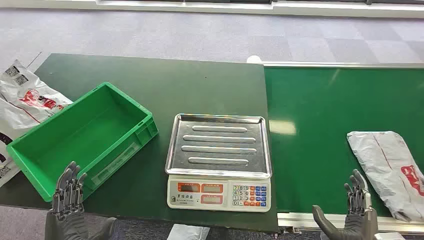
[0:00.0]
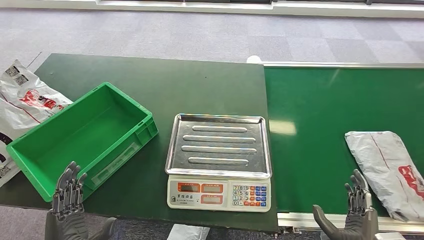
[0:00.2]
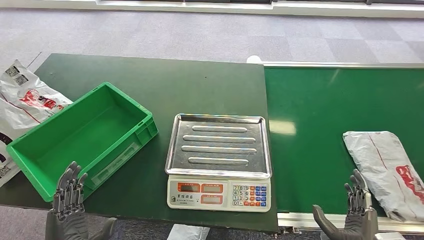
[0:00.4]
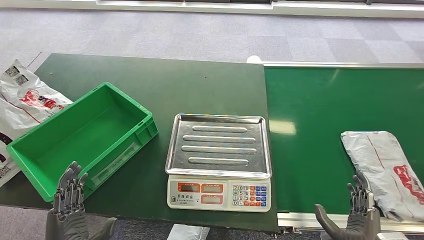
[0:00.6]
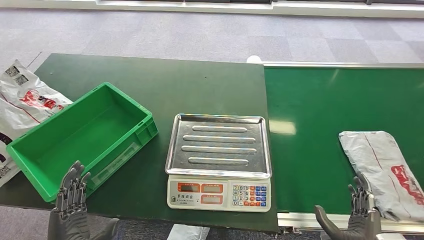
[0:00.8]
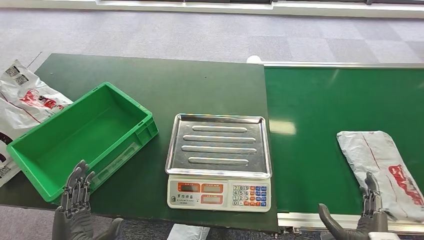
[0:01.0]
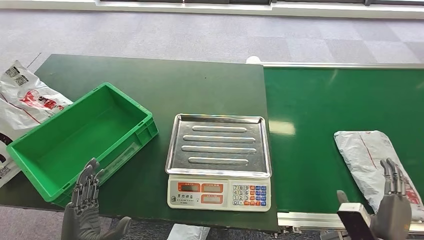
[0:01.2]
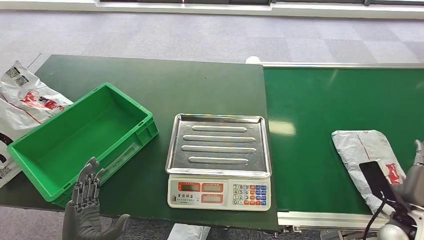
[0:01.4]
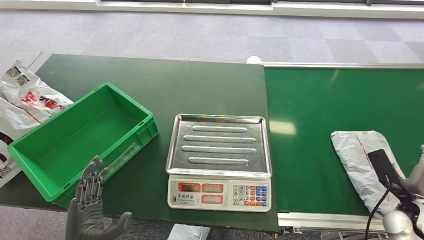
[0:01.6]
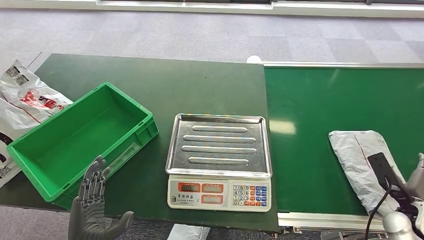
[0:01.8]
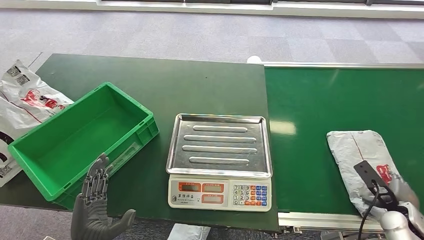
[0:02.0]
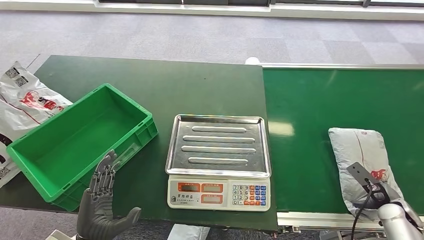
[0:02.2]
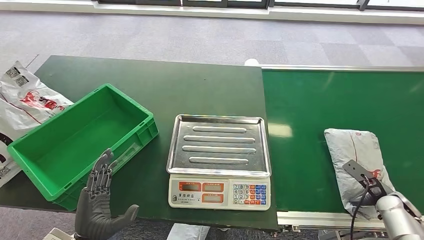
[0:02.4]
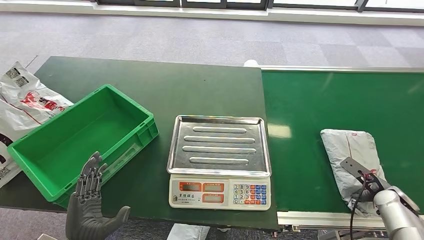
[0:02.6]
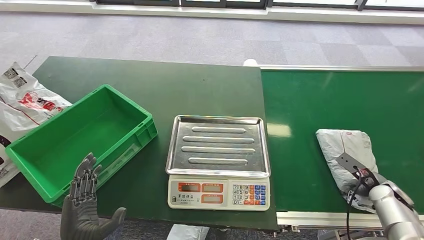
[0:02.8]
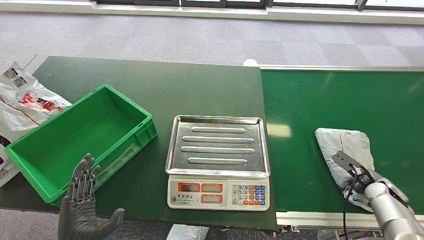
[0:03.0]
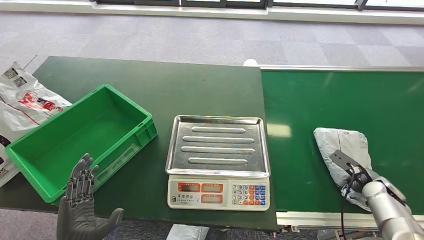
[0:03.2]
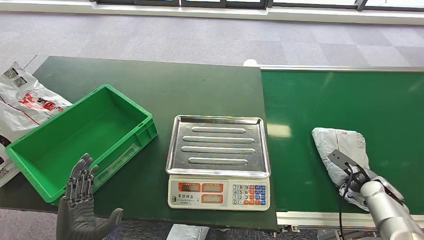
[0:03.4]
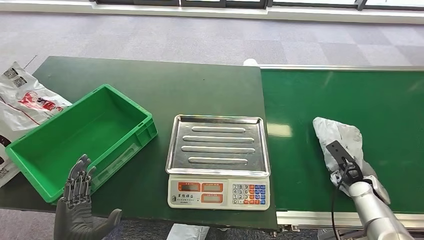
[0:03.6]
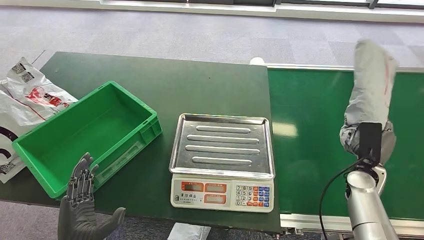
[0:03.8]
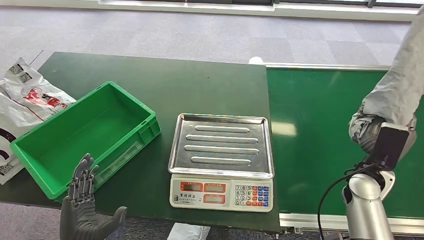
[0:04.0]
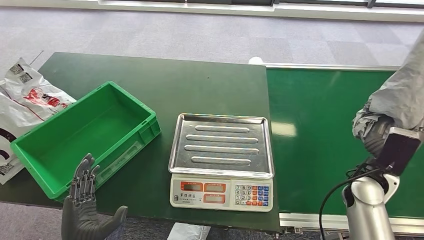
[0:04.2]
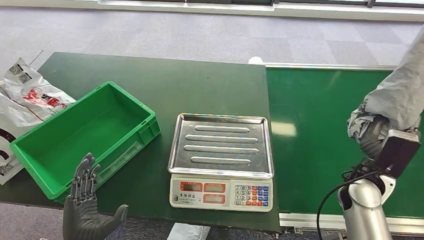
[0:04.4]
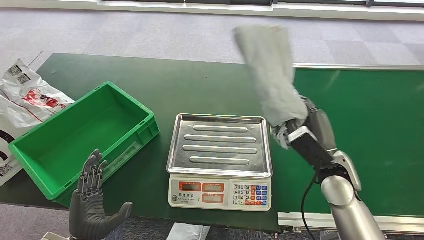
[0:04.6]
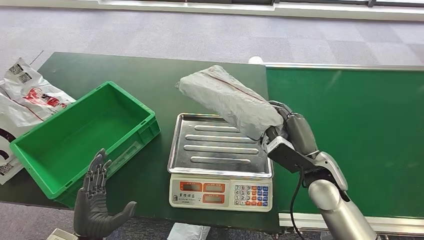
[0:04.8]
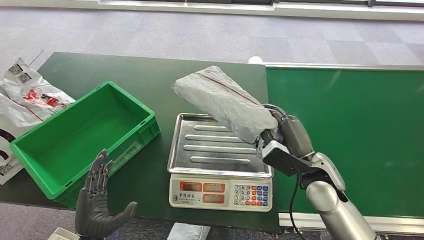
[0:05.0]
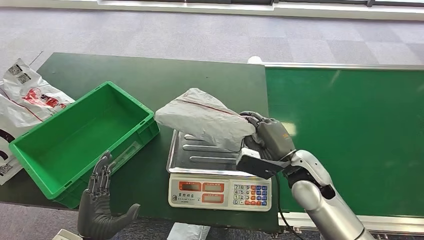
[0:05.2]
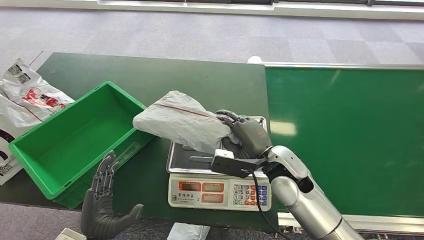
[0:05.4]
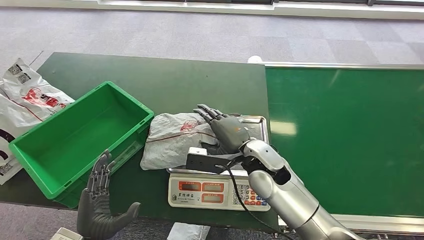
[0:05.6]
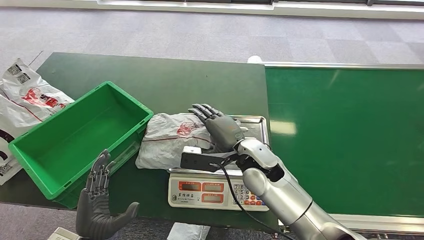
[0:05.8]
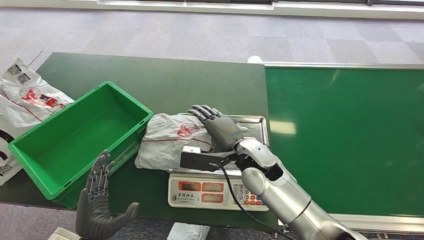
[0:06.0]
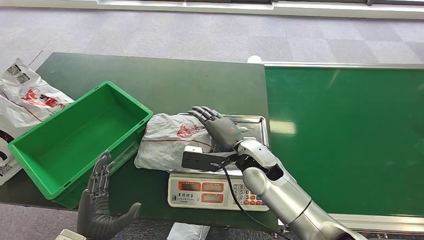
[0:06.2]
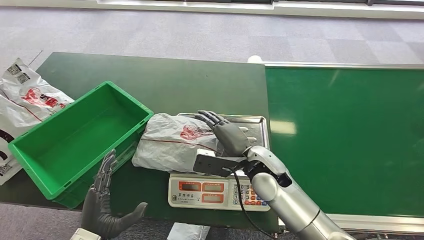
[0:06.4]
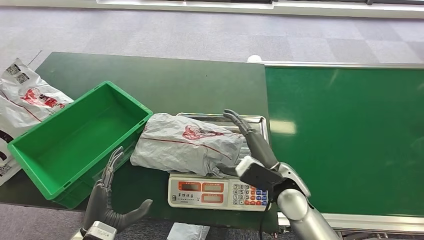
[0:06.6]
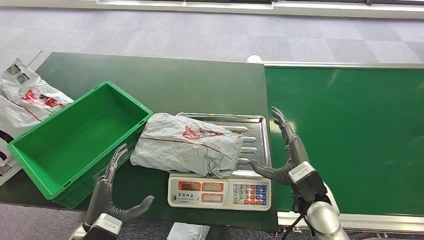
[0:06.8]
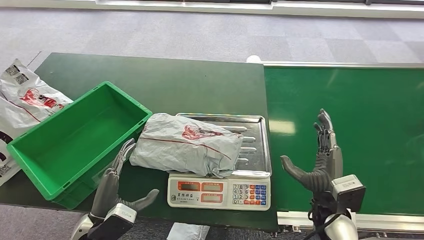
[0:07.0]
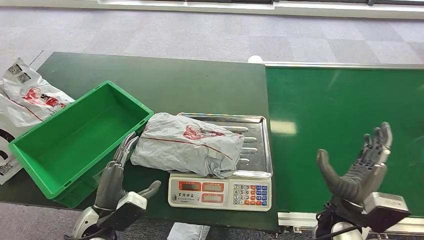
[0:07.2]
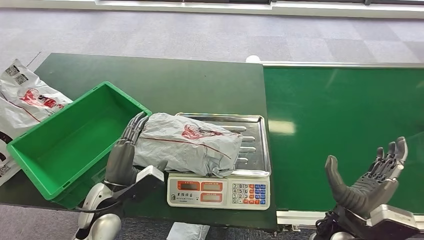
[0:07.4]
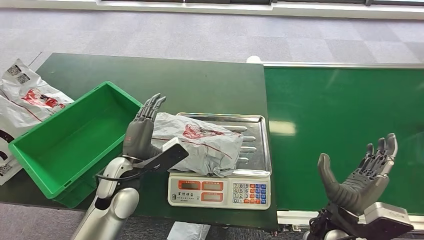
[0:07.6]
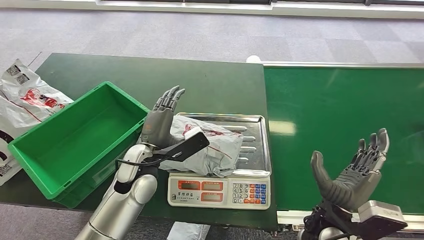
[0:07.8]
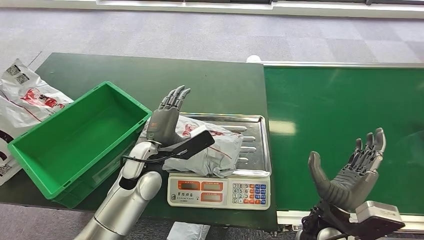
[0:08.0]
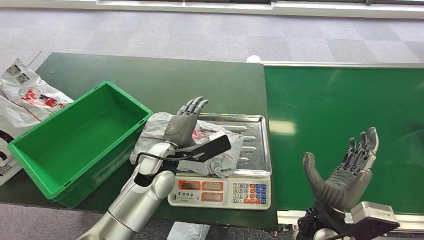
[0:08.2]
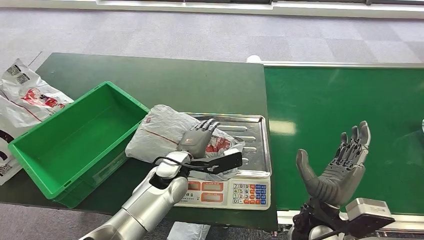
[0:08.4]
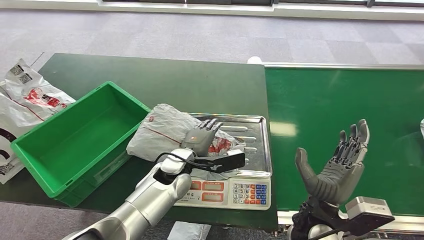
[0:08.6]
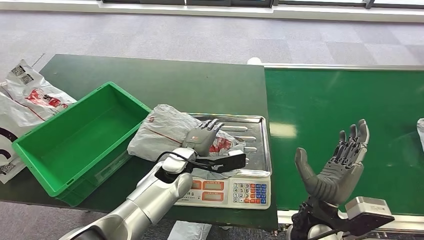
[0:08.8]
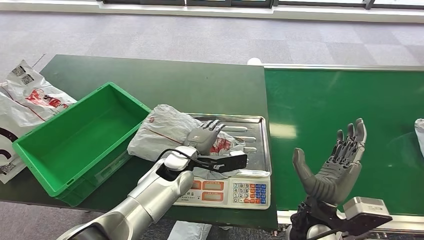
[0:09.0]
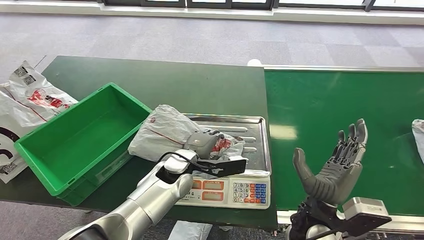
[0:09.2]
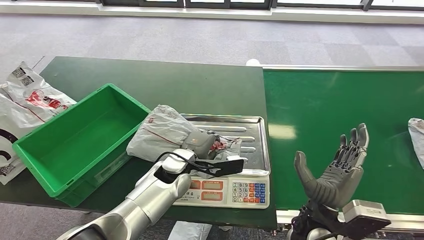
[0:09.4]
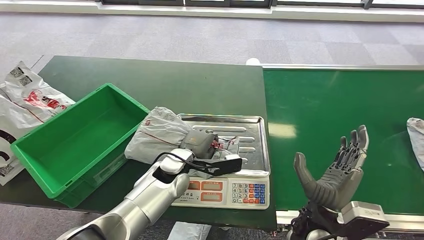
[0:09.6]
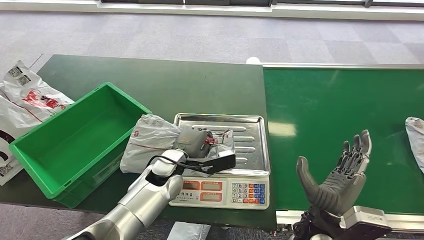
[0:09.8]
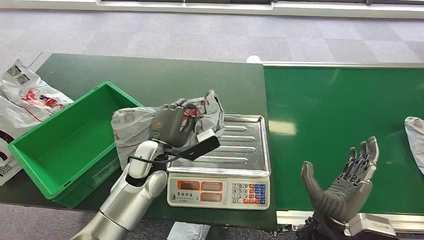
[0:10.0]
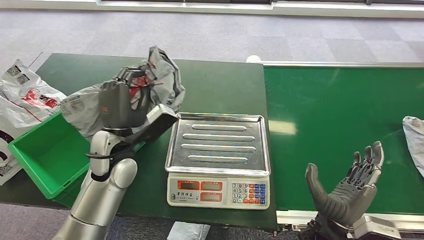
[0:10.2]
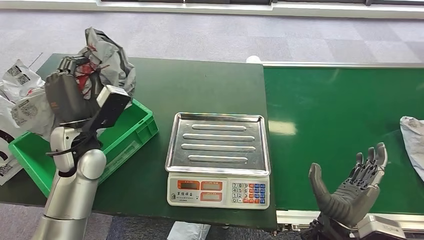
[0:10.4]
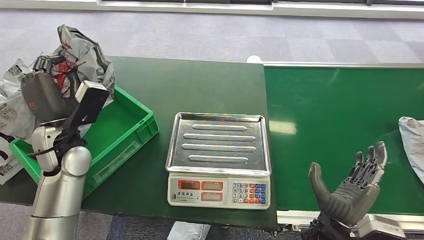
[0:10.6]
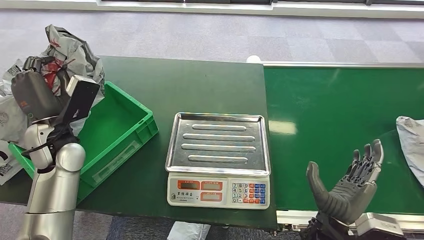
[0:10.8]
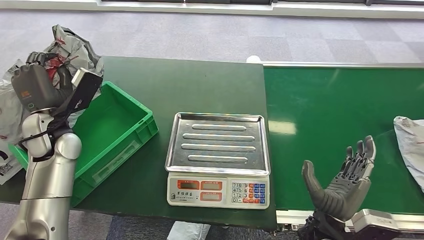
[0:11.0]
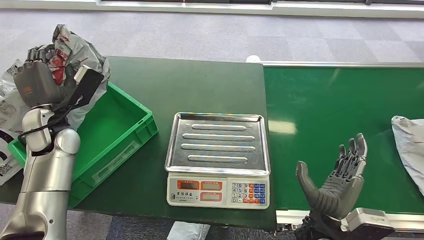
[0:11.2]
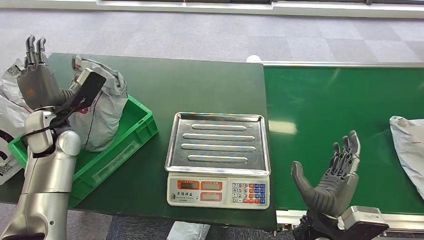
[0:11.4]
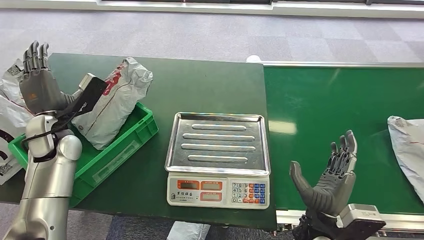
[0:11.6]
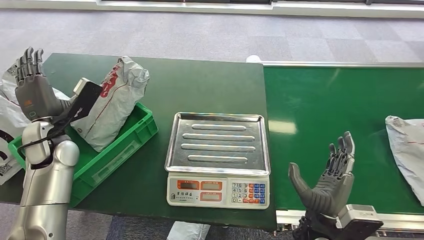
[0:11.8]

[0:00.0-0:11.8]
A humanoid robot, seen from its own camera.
Step, 0:00.0 to 0:04.2: Pick up the package from the conveyor belt.
Step, 0:04.4 to 0:06.8: Place the package onto the inbound machine.
Step, 0:07.2 to 0:10.4: Pick up the package from the inbound machine.
Step, 0:10.6 to 0:11.8: Place the package into the parcel locker.
0:06.0 to 0:07.4: The left hand travels forward by some 10 cm. The right hand is displaced to the right and backward by roughly 20 cm.
